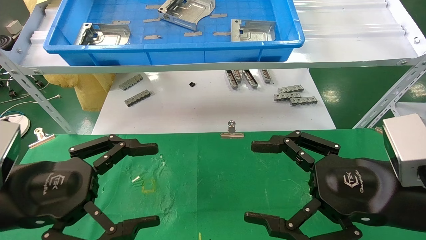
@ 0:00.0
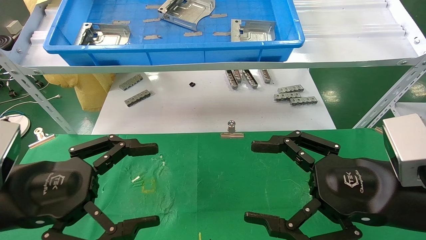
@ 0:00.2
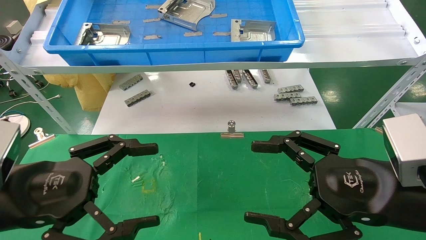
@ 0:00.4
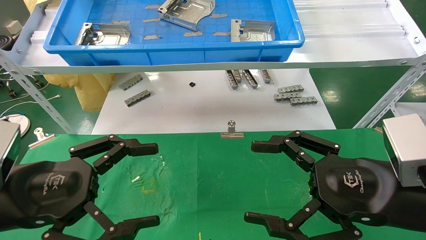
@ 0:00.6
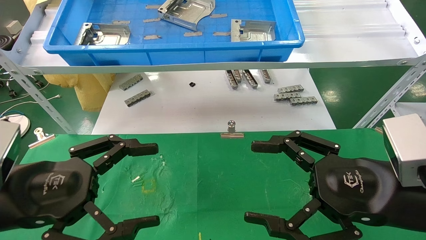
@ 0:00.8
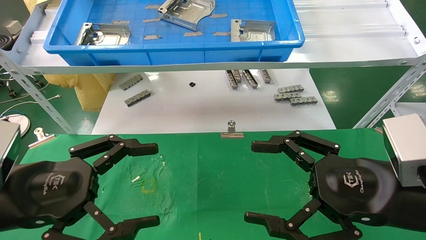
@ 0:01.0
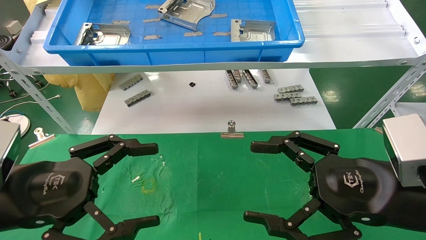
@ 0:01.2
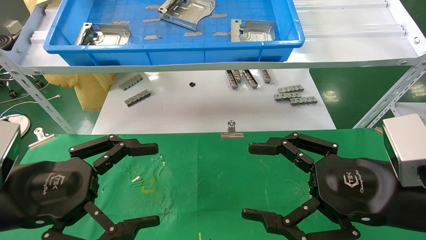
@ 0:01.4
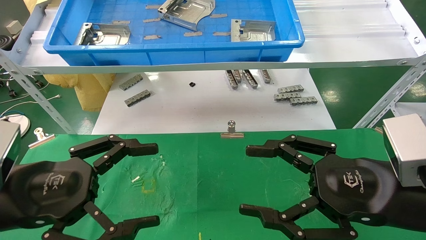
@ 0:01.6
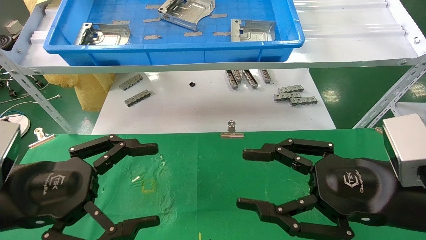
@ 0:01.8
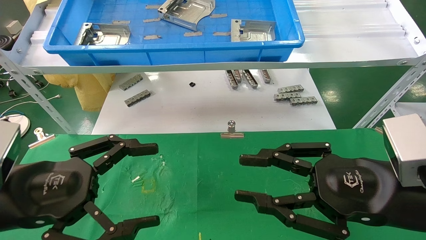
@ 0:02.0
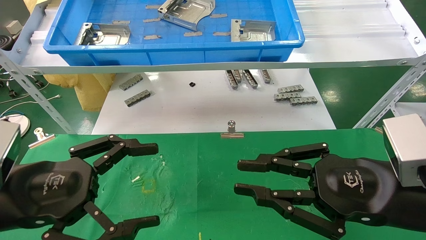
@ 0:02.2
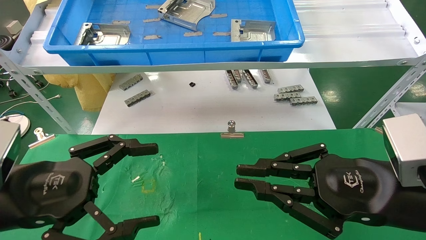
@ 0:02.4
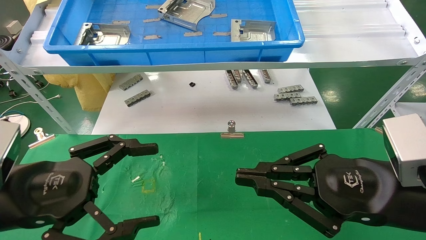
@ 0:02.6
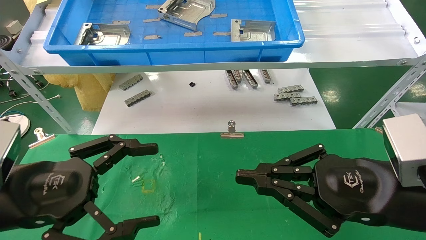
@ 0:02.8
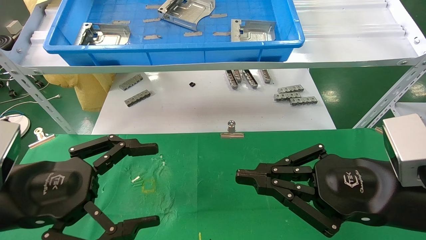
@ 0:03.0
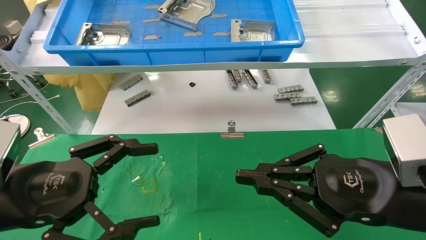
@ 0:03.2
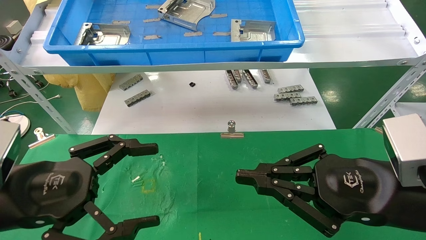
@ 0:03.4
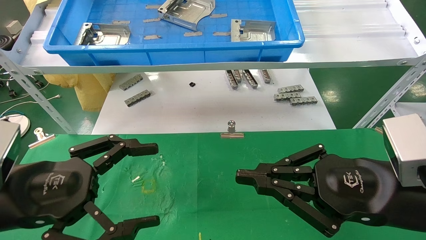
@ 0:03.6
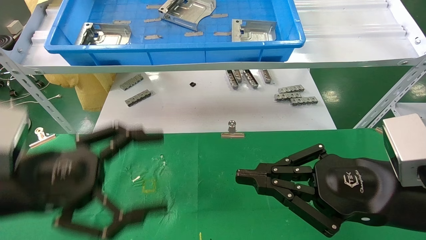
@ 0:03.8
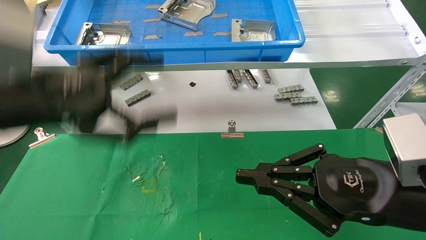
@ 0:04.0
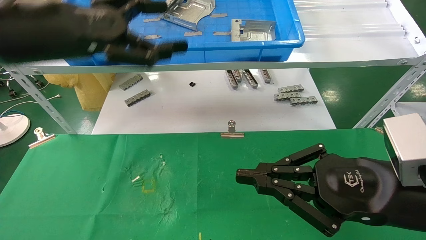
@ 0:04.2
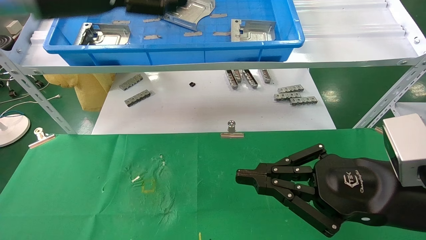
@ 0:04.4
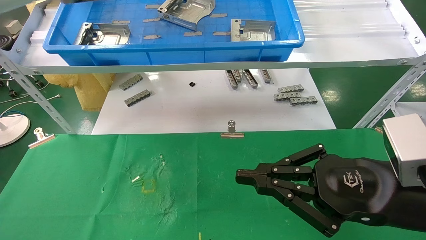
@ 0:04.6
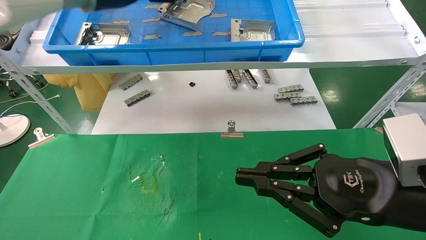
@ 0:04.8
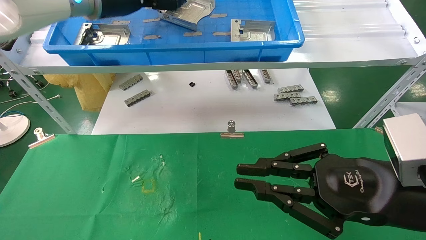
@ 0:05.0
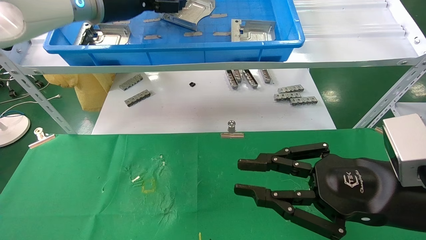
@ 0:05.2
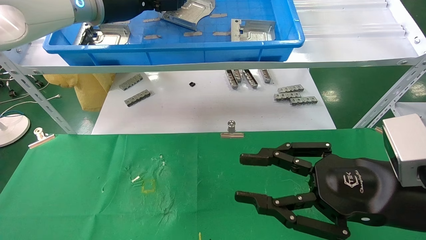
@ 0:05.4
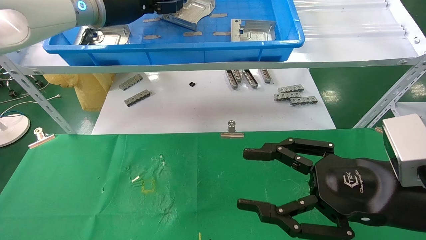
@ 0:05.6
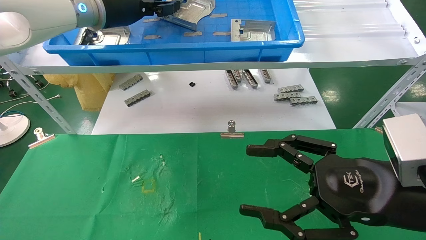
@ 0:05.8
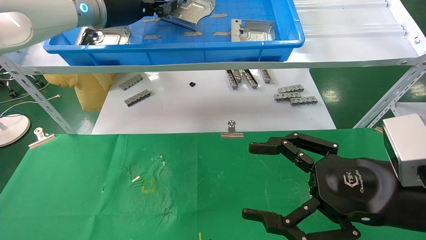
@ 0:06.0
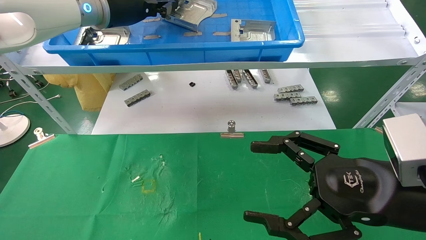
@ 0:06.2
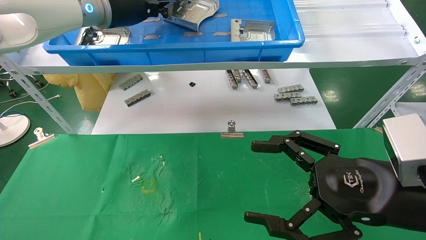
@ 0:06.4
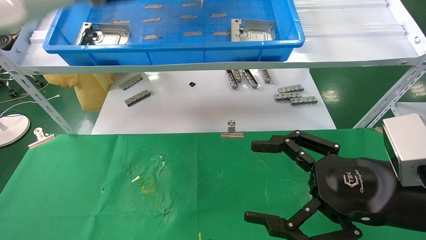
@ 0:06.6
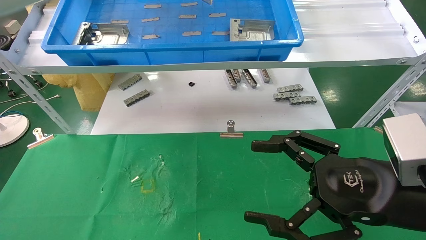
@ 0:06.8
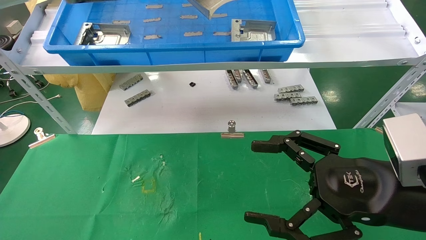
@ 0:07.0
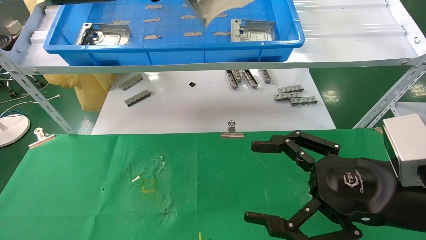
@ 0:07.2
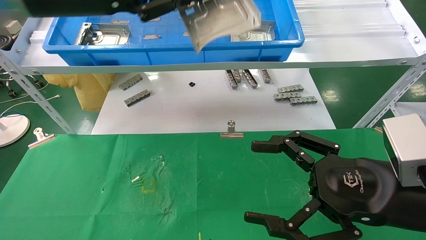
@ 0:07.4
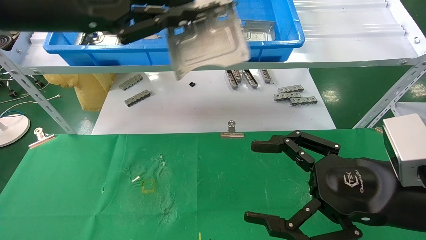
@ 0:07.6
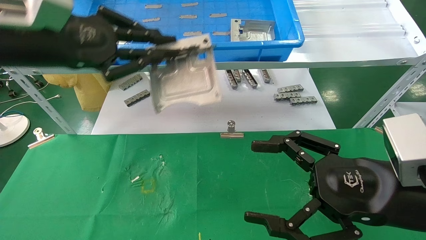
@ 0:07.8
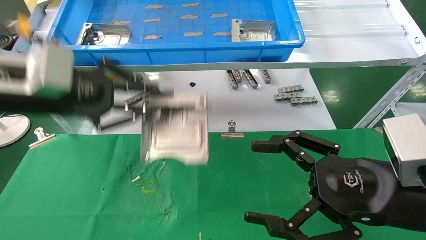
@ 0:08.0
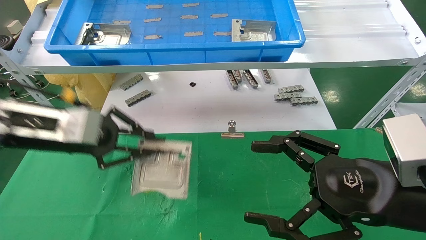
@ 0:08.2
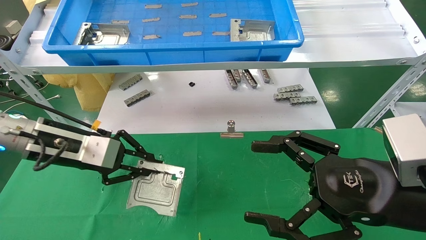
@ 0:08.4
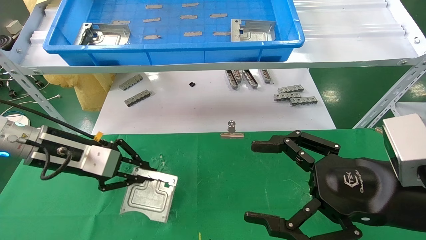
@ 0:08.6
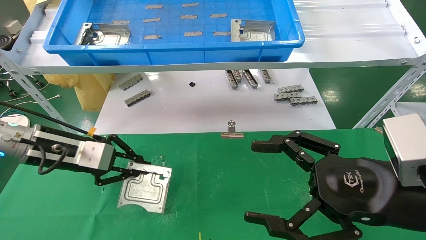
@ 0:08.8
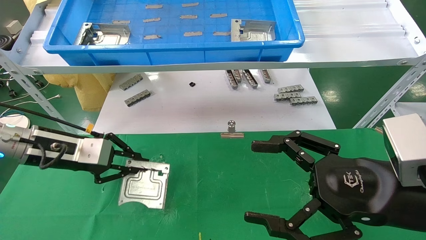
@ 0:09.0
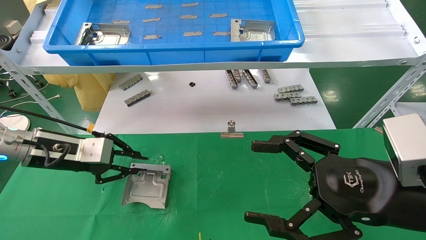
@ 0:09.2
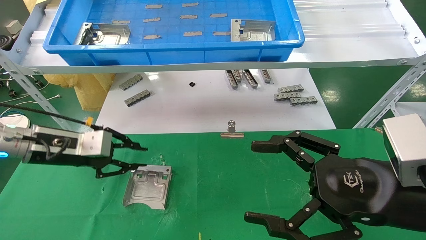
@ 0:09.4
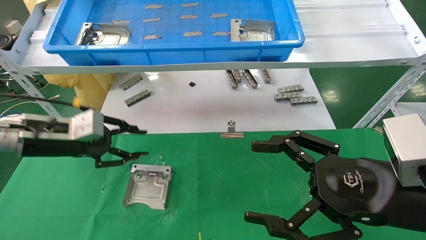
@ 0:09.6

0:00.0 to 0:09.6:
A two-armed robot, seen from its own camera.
Task of the whole recording: use the mechanical arm to pick up the parts and place them on the table.
Step, 0:04.0 to 0:06.0: Pick up the hard drive bracket from the feeding area.
Step, 0:06.2 to 0:09.4: Place the hard drive bracket into the box.
0:00.0 to 0:01.6: The two grippers keep their place.
0:01.6 to 0:03.2: The right gripper closes its fingers.
0:03.2 to 0:04.8: The left gripper shifts some 35 cm upward and forward.
0:04.8 to 0:06.4: The right gripper opens. The left gripper closes up.
0:06.4 to 0:08.0: The left gripper is displaced backward, downward and to the left by roughly 20 cm.
0:08.0 to 0:09.6: The left gripper goes some 15 cm downward, forward and to the left.

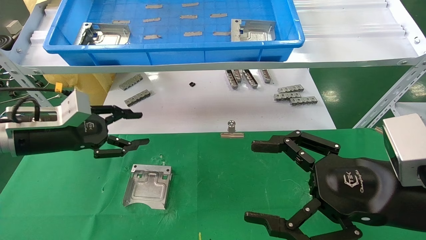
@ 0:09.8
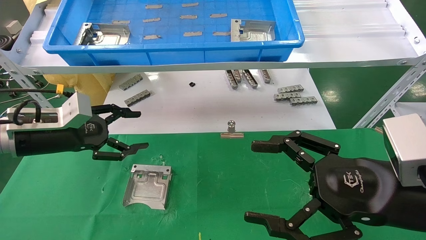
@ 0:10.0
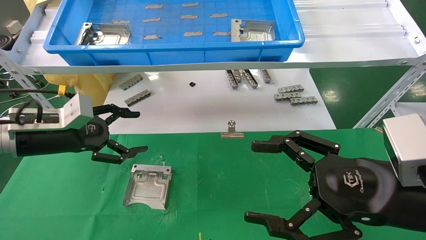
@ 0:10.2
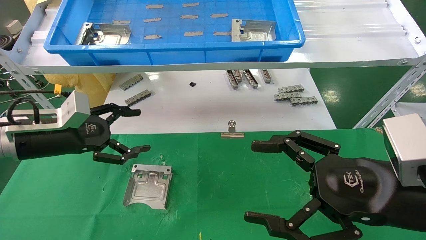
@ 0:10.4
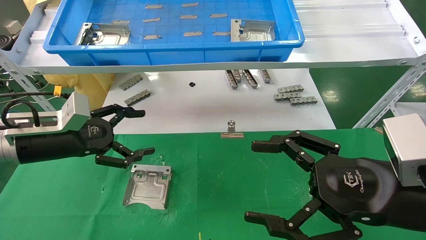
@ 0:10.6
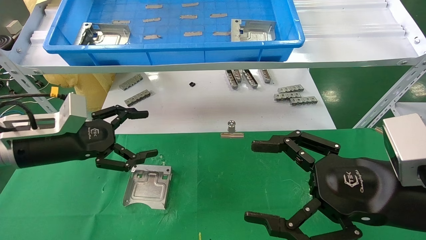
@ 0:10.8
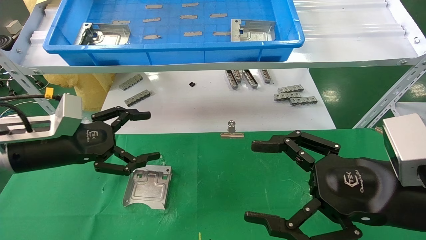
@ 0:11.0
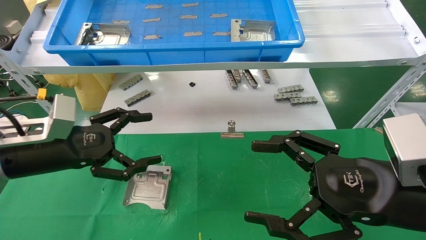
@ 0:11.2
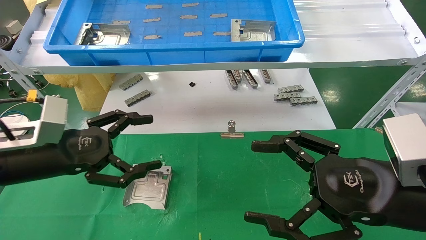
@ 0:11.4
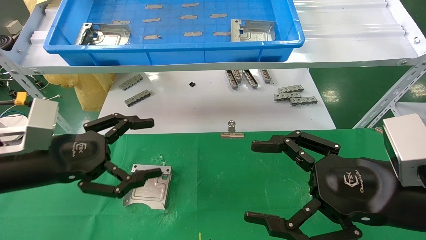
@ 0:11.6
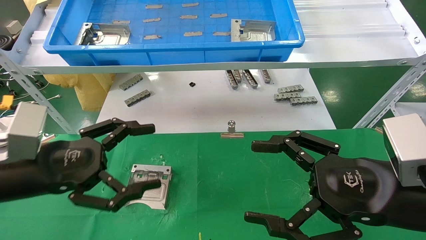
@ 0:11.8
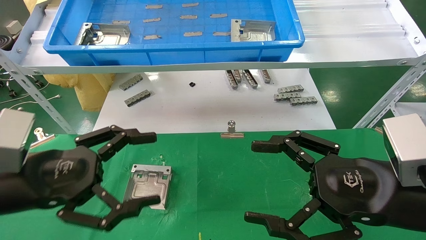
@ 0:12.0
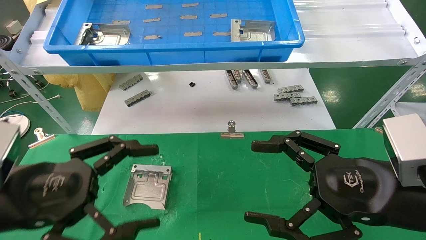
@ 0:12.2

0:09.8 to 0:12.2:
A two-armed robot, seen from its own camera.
Task of the whole recording: use the mechanical arm to pick up the parts and place them on the table.
0:09.8 to 0:11.0: The left gripper opens its fingers.
0:11.0 to 0:12.2: The left gripper goes some 10 cm backward.
